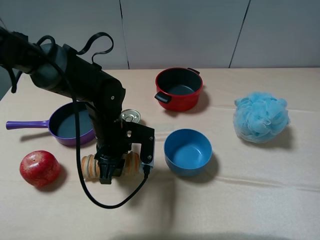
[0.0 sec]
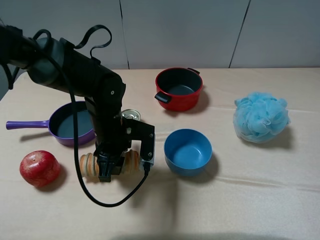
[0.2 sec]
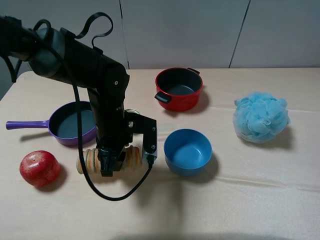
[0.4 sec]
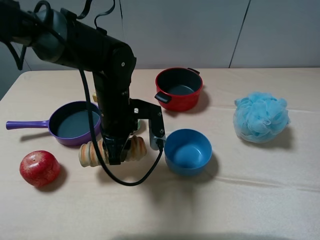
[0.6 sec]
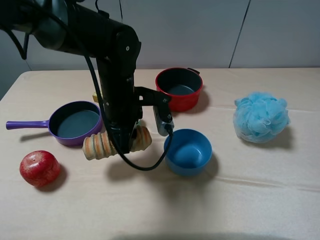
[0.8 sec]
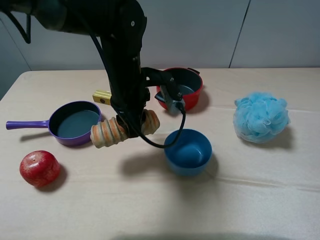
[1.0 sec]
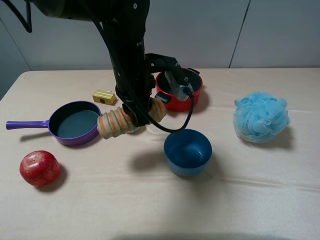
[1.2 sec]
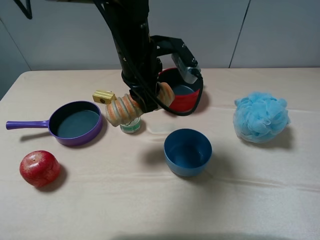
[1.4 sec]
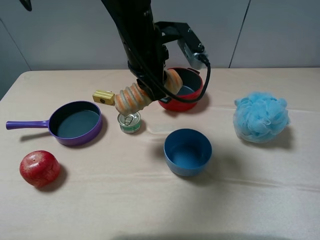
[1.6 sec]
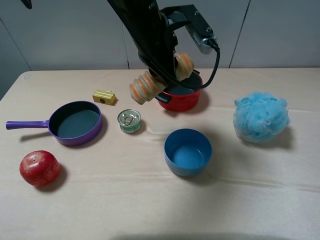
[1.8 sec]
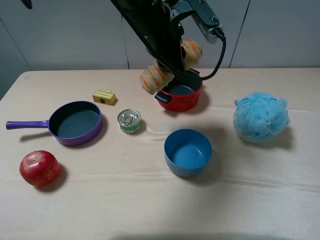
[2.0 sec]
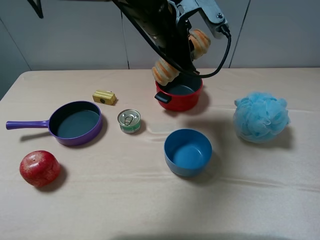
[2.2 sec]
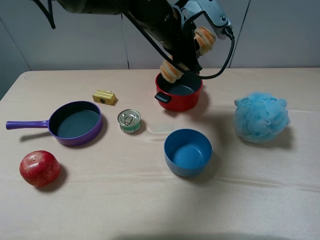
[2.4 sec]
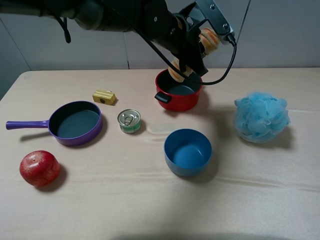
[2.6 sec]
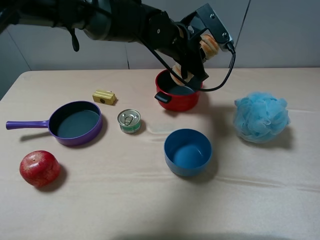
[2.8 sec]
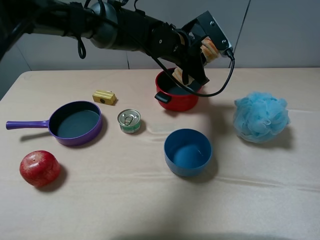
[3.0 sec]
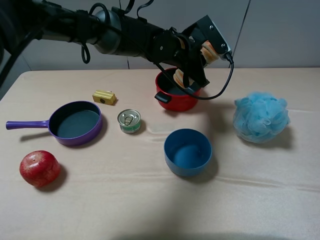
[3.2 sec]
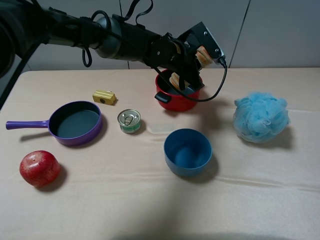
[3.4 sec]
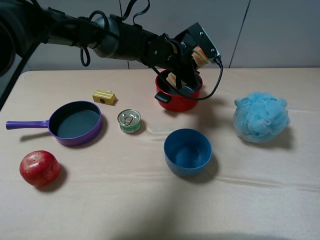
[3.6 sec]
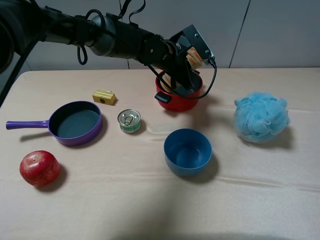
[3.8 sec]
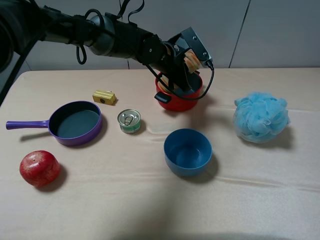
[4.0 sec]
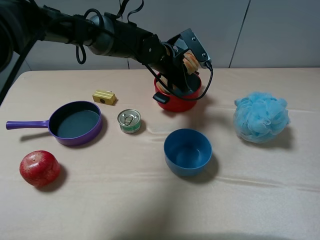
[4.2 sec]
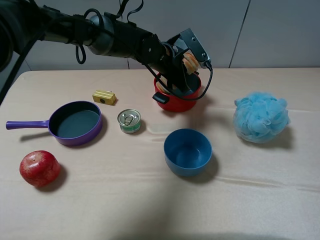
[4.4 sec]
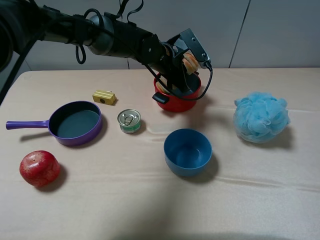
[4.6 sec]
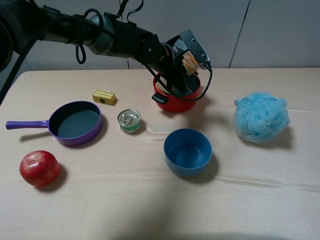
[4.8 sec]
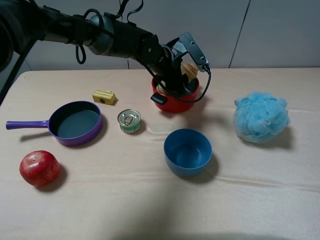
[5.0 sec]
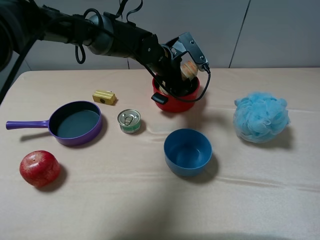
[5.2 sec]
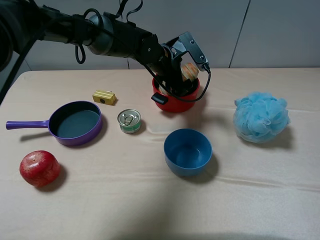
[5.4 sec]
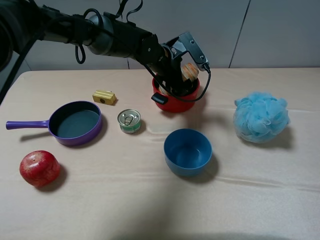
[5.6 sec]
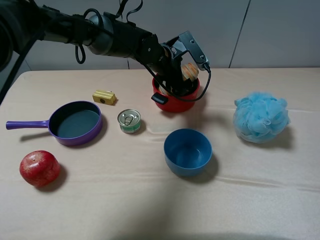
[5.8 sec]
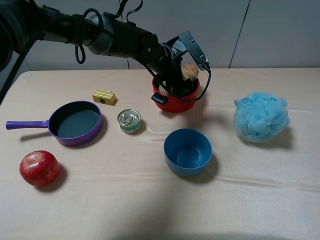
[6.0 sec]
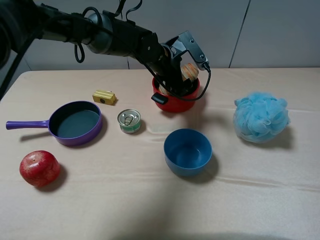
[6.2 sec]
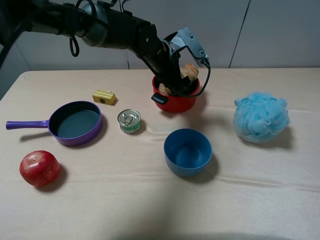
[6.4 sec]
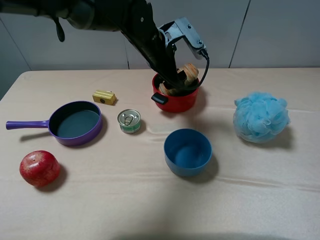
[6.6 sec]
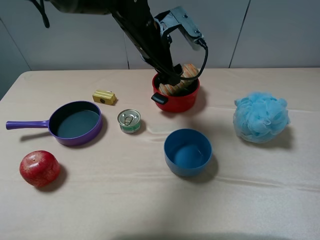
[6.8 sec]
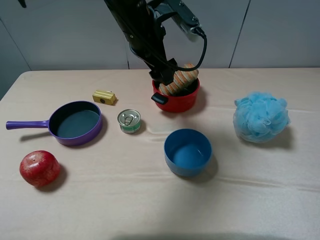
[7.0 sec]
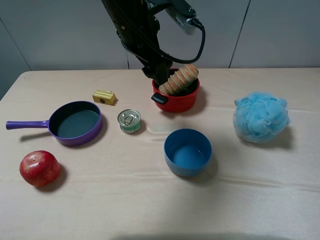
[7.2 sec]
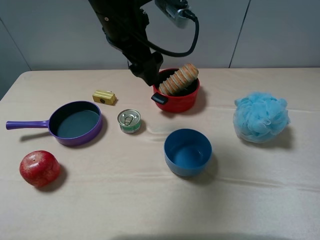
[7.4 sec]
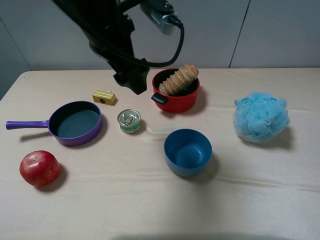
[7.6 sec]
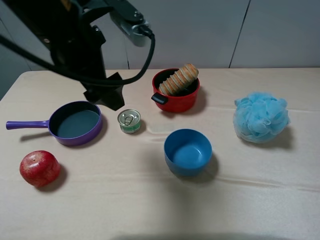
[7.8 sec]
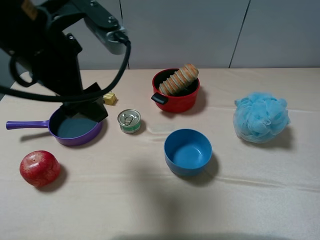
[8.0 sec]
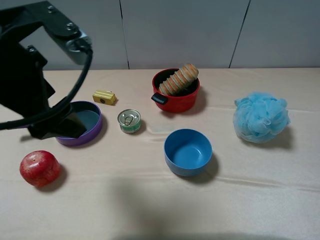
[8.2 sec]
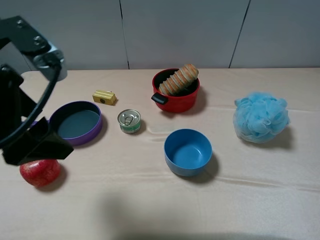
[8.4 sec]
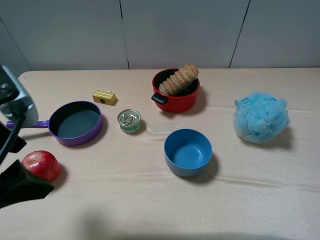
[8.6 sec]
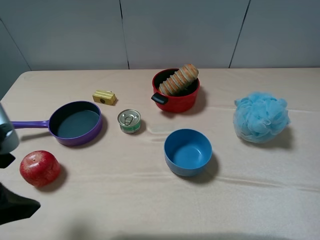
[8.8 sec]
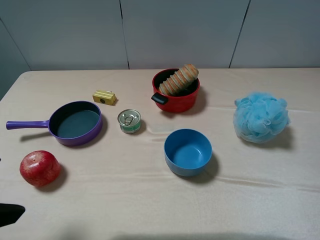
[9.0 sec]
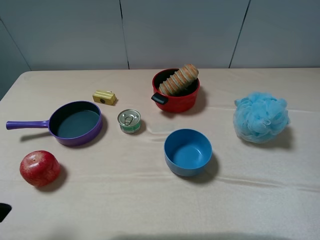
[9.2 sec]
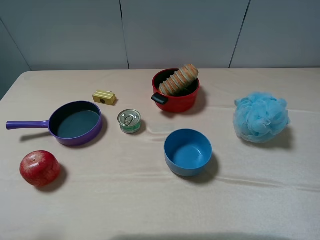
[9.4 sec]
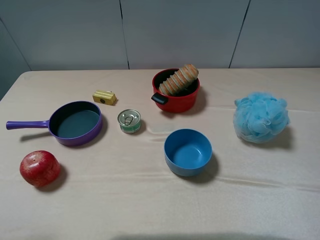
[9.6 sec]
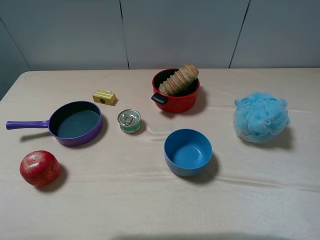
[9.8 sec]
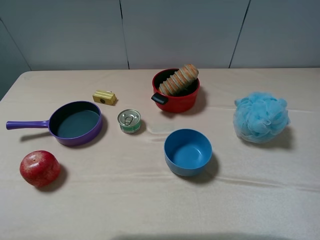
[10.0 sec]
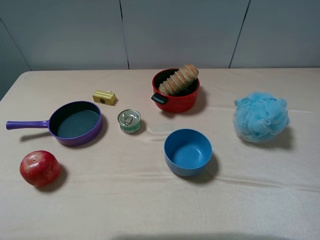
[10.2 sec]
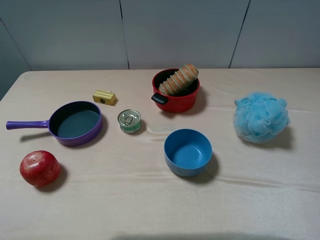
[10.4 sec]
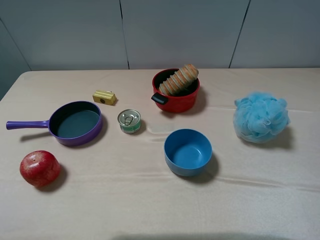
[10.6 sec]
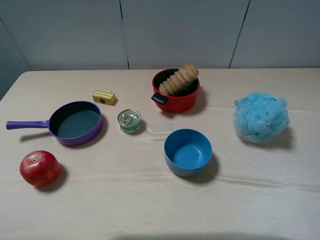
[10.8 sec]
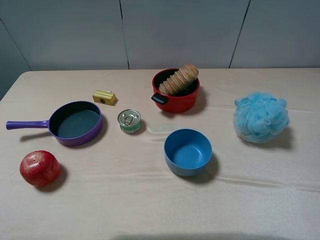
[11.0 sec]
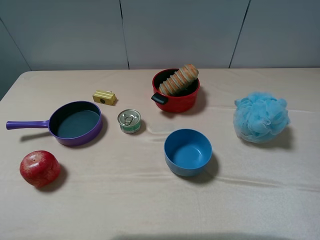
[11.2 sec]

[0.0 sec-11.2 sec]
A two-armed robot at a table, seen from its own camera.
Task of the whole recording: pick up an item with a gripper and place it in a random container on the table.
Step, 0.0 sec to 5.6 sec: Place the long bread into the red pot with the left gripper.
0.0 sec to 1.6 sec: The left gripper heads upward, forward and to the right, covering approximately 20 cm.
1.6 sec to 3.2 sec: The left gripper goes some 10 cm forward, downward and to the right.
3.2 sec to 4.8 sec: There are only small adjustments of the grippers.
4.8 sec to 6.4 sec: The left gripper opens up.
6.4 sec to 8.0 sec: The left gripper moves backward, to the left and upward, about 25 cm.
8.0 sec to 9.6 sec: The left gripper goes about 25 cm backward and to the left.

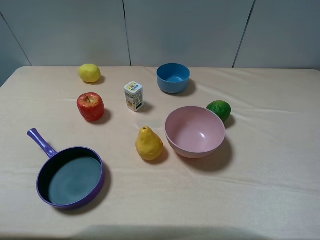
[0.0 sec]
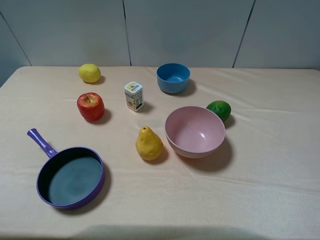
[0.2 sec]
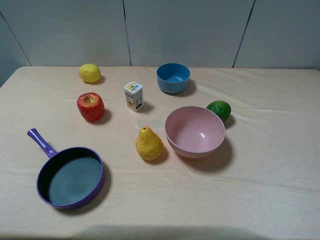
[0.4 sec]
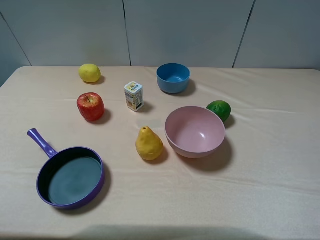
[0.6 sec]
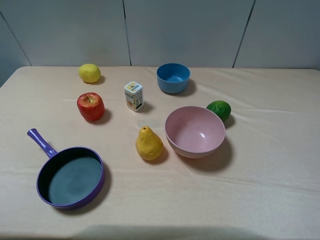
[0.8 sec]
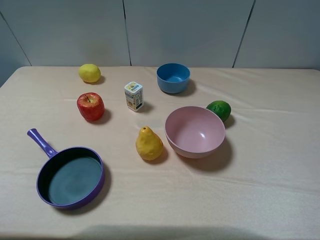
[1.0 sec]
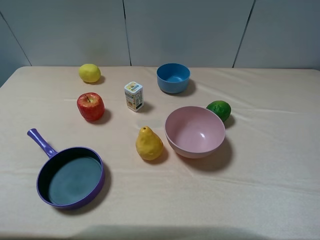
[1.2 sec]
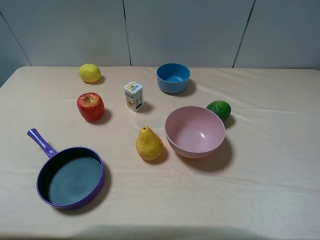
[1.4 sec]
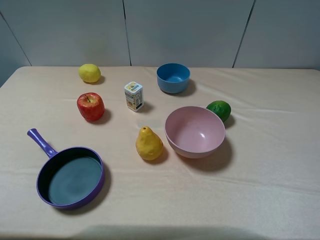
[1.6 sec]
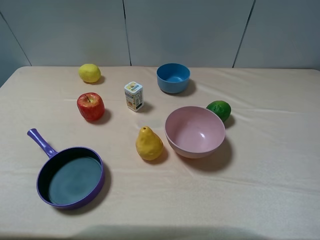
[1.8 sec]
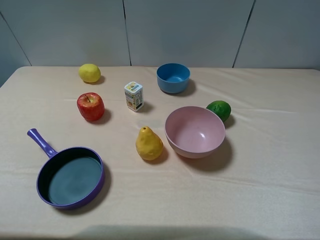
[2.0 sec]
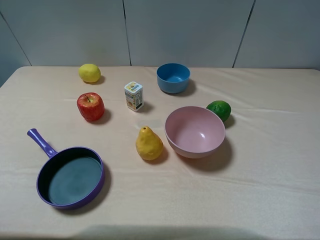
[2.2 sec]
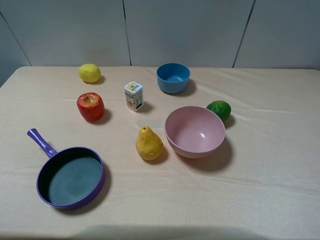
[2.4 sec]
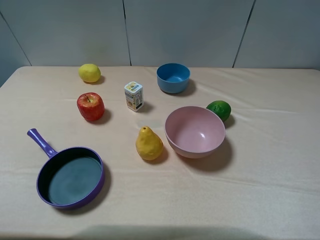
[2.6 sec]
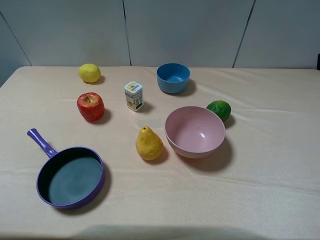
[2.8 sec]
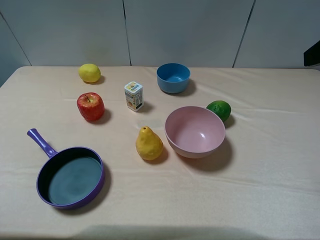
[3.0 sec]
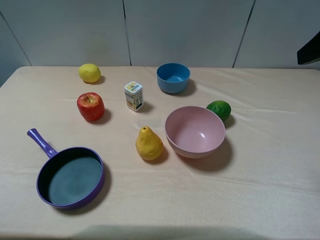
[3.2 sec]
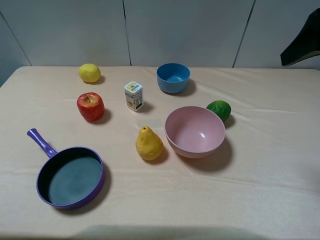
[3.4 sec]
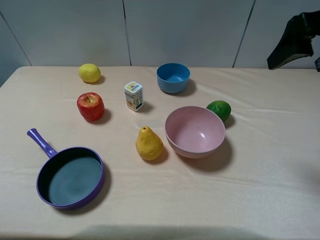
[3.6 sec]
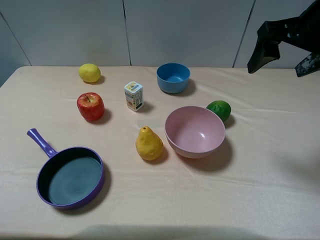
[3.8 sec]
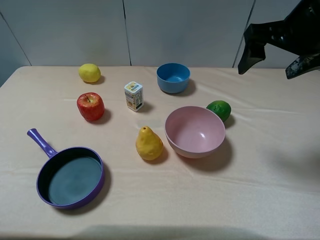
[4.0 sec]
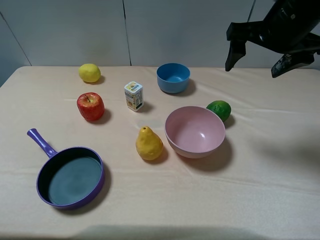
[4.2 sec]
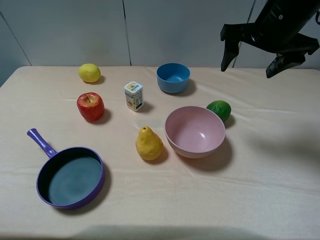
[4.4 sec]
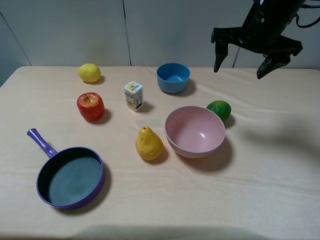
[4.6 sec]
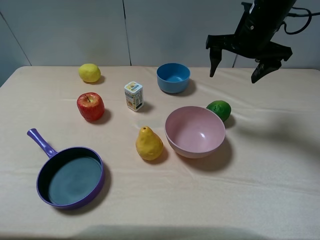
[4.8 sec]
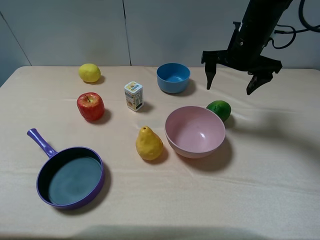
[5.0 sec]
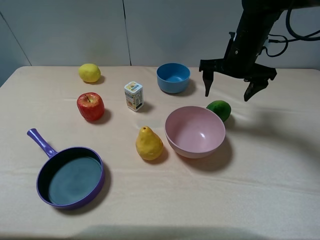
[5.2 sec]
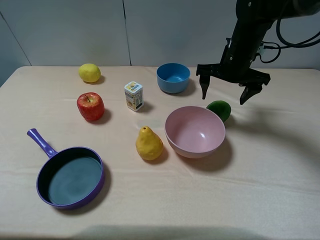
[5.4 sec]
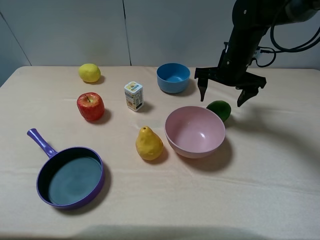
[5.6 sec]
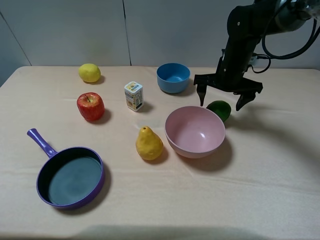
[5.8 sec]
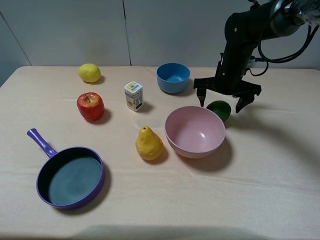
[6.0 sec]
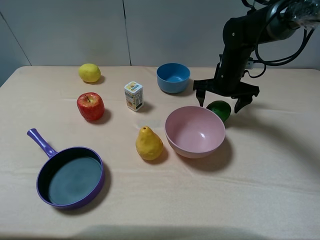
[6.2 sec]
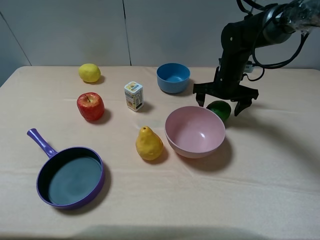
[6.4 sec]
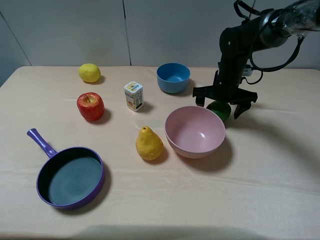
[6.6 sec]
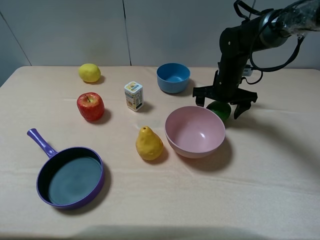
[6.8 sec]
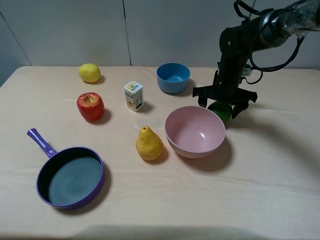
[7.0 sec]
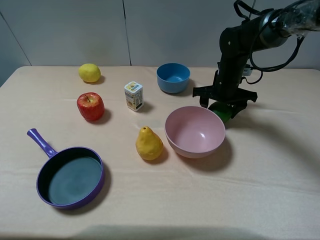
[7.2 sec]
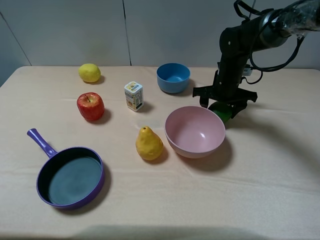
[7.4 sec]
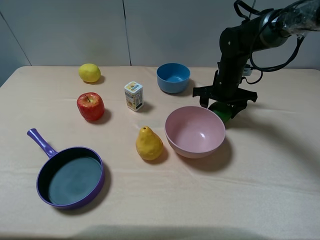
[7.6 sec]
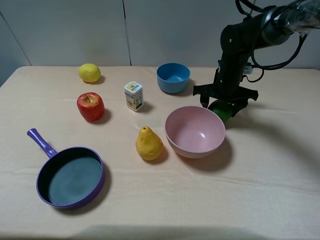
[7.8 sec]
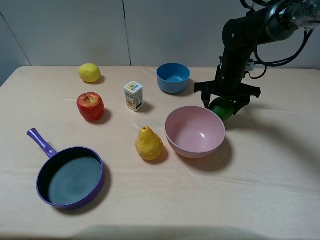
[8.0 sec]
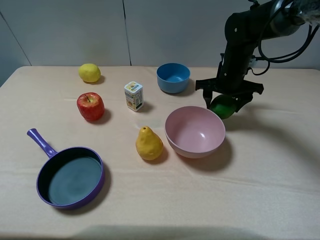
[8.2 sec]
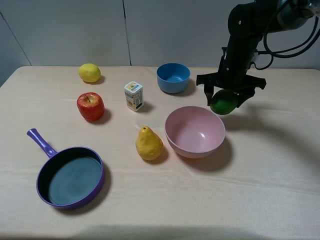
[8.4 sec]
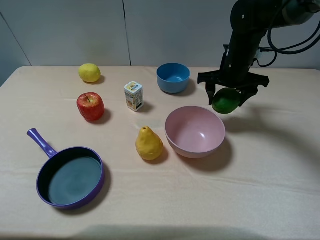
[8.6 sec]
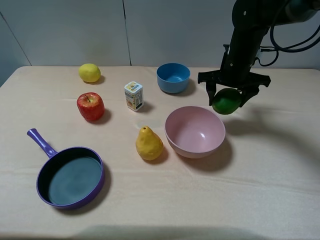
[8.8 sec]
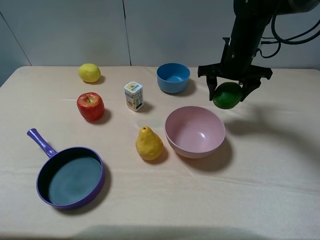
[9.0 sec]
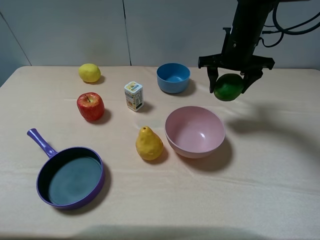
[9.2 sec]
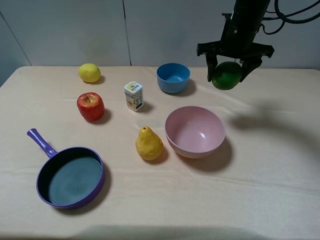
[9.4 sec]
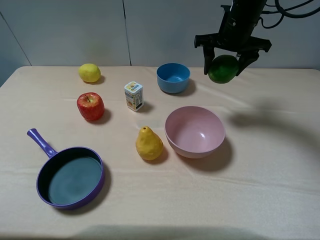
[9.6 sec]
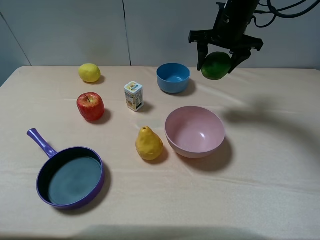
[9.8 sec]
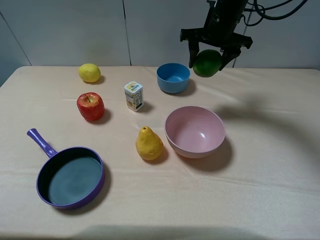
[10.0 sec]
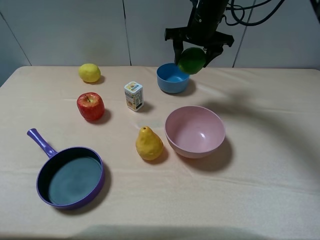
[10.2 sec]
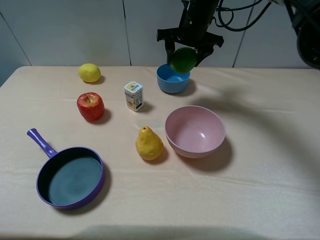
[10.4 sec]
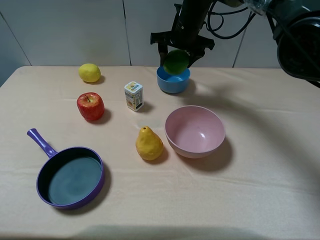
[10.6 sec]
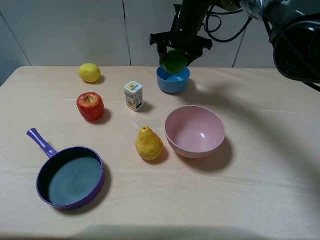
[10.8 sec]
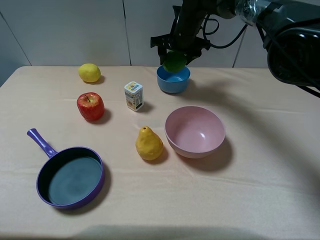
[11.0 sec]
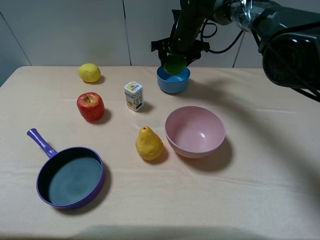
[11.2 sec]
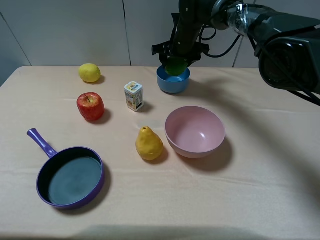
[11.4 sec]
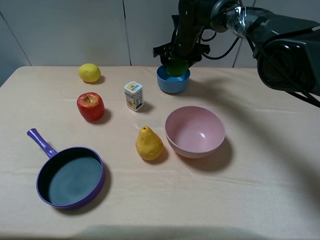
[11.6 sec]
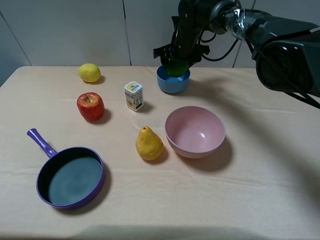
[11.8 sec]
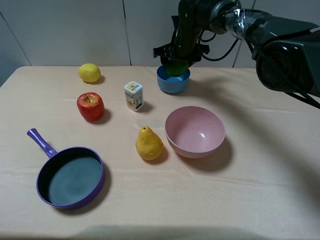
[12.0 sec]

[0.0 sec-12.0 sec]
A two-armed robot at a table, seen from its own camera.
Task of the whole recording: pick up an item with a gripper and place it in a random container on the table.
0.0 sec to 1.6 sec: Both grippers stay put.
3.0 sec to 4.4 sec: The right gripper shifts roughly 20 cm forward, to the left and downward.
4.4 sec to 6.0 sec: The right gripper is displaced downward and forward by about 15 cm.
6.0 sec to 7.6 sec: The right gripper closes its fingers.
7.6 sec to 9.0 sec: The right gripper is displaced upward by roughly 10 cm.
9.0 sec to 10.4 sec: The right gripper shifts approximately 10 cm to the left and forward.
10.4 sec to 12.0 sec: The right gripper moves downward, some 5 cm.
